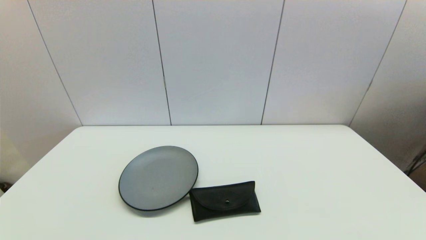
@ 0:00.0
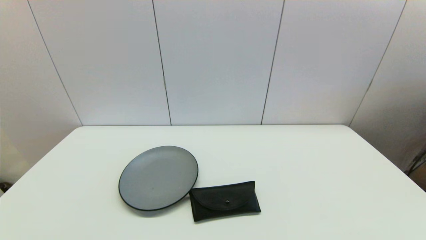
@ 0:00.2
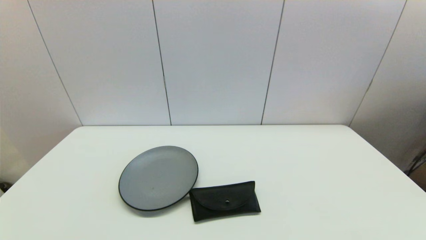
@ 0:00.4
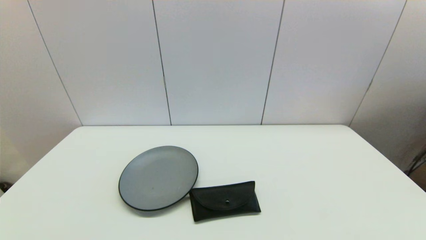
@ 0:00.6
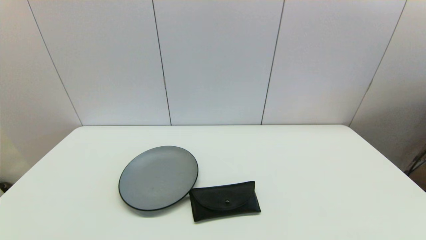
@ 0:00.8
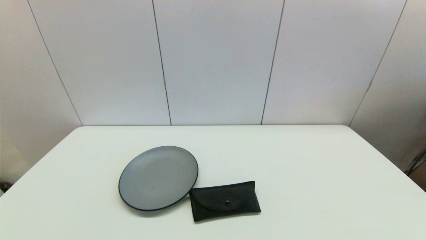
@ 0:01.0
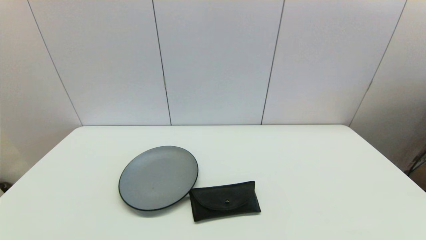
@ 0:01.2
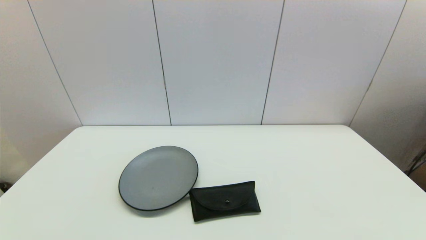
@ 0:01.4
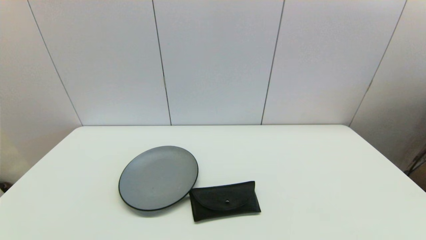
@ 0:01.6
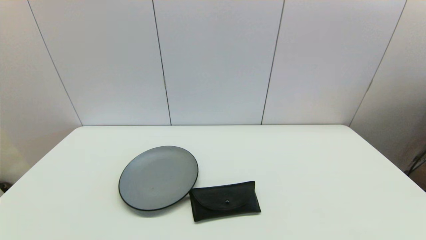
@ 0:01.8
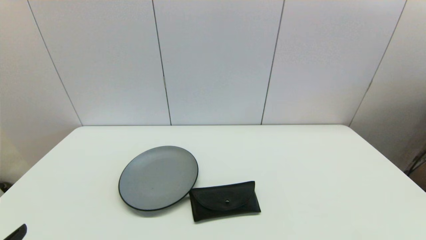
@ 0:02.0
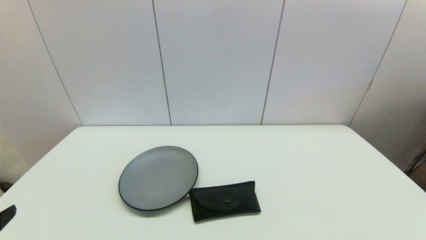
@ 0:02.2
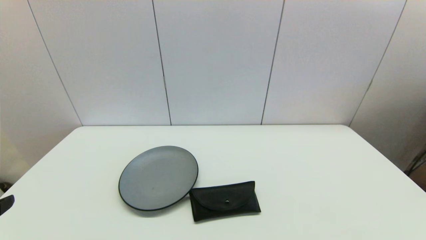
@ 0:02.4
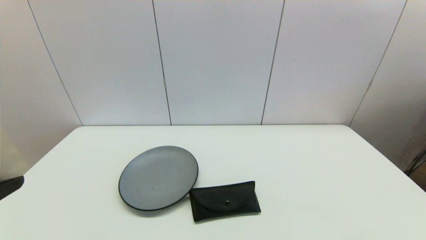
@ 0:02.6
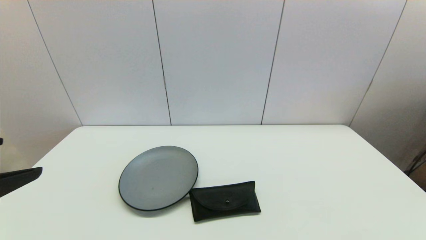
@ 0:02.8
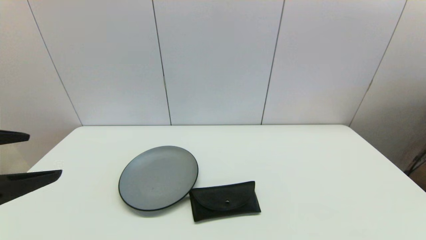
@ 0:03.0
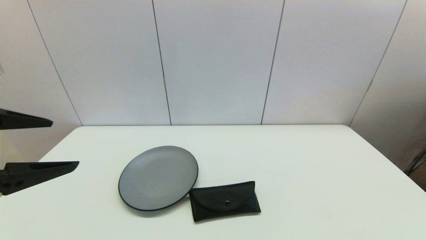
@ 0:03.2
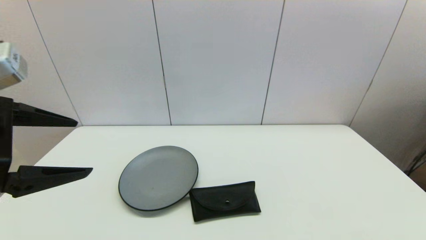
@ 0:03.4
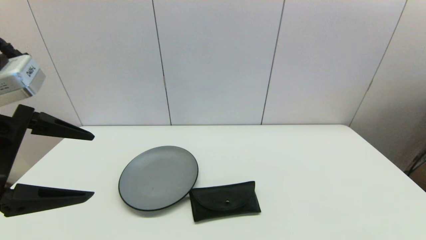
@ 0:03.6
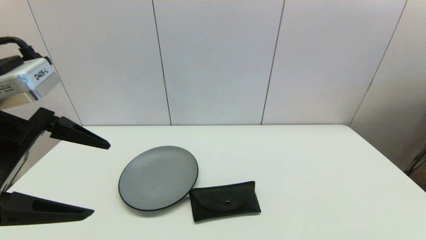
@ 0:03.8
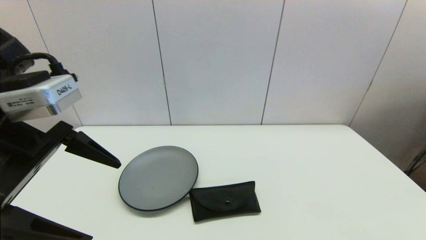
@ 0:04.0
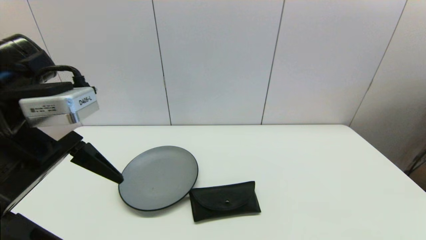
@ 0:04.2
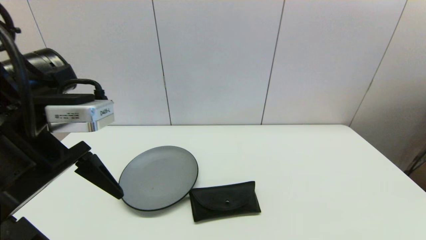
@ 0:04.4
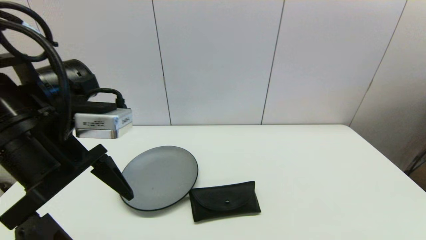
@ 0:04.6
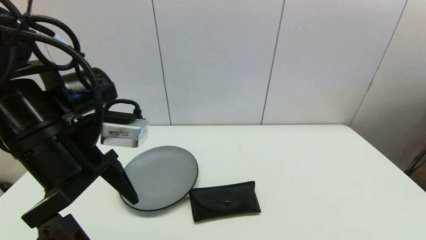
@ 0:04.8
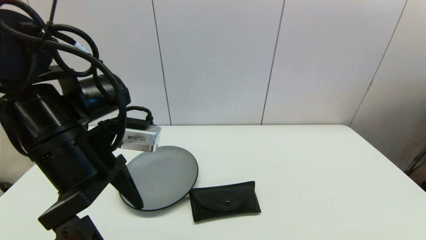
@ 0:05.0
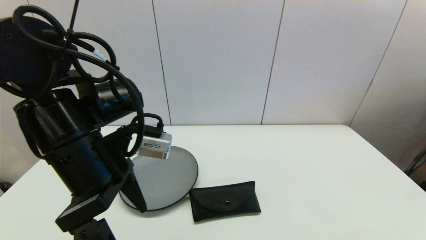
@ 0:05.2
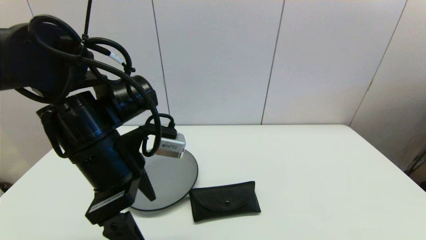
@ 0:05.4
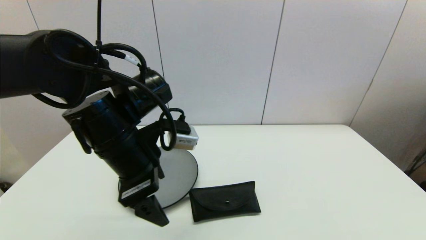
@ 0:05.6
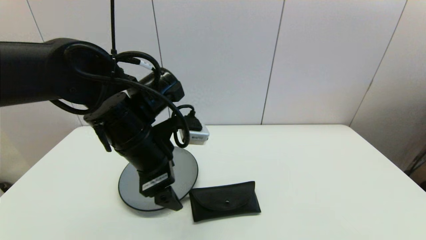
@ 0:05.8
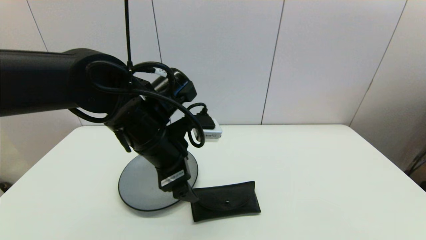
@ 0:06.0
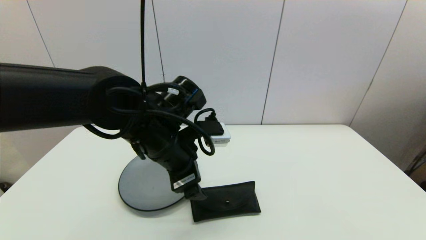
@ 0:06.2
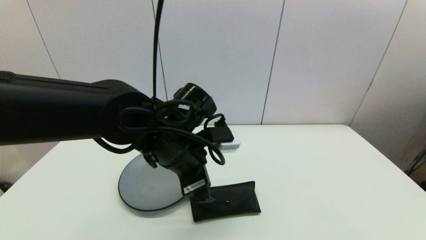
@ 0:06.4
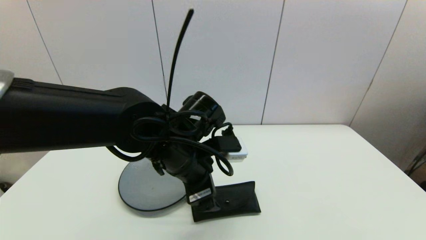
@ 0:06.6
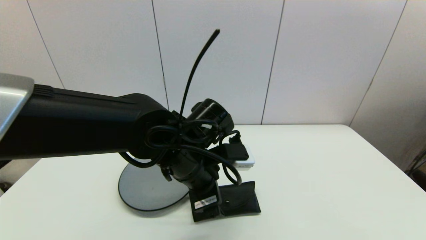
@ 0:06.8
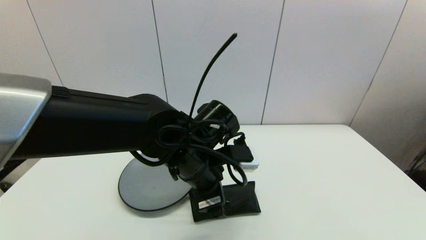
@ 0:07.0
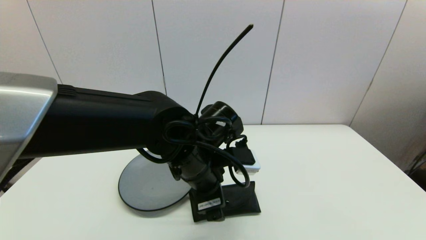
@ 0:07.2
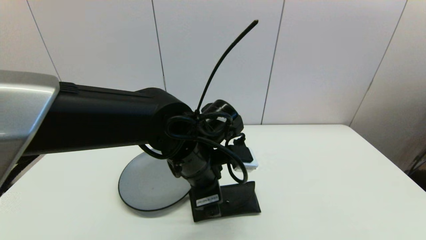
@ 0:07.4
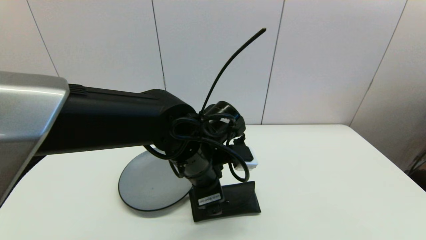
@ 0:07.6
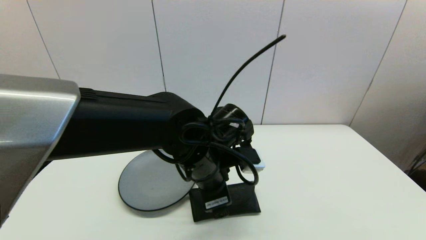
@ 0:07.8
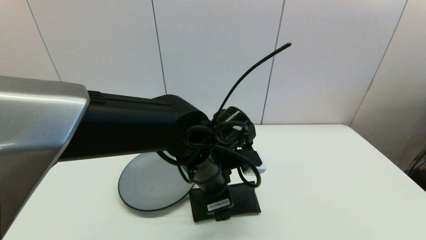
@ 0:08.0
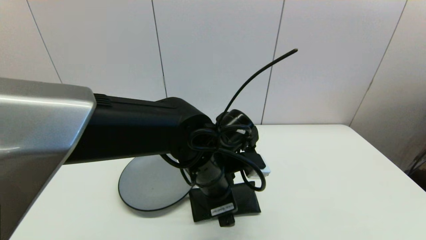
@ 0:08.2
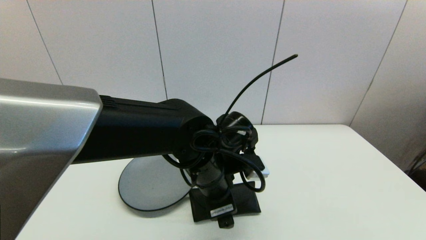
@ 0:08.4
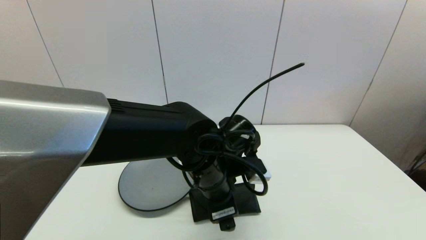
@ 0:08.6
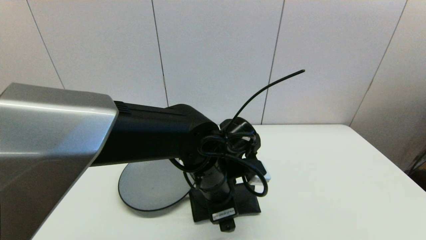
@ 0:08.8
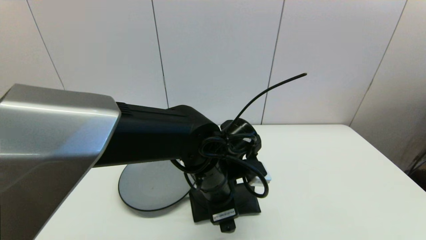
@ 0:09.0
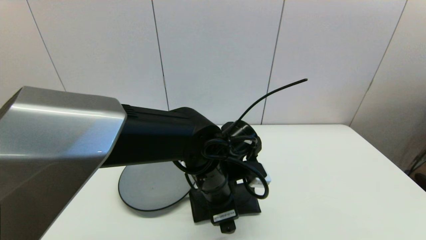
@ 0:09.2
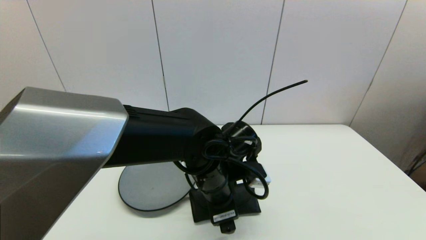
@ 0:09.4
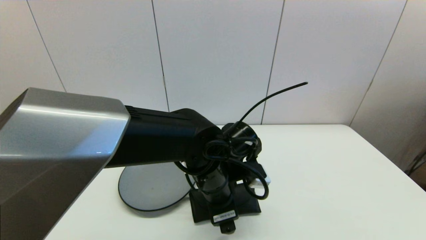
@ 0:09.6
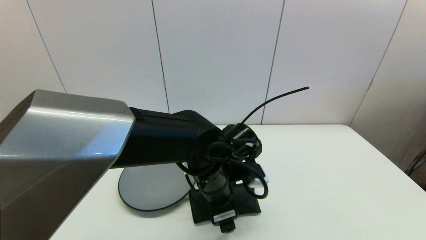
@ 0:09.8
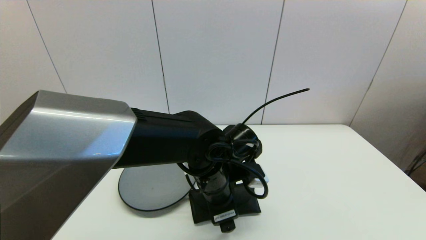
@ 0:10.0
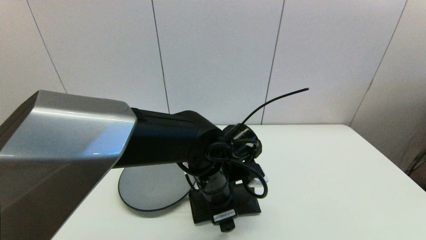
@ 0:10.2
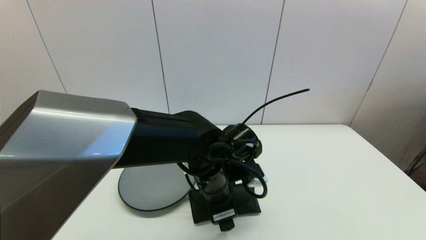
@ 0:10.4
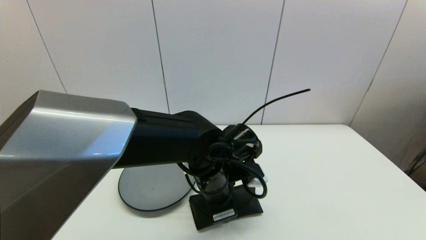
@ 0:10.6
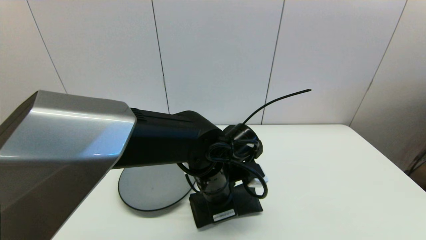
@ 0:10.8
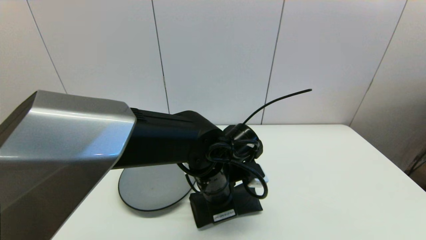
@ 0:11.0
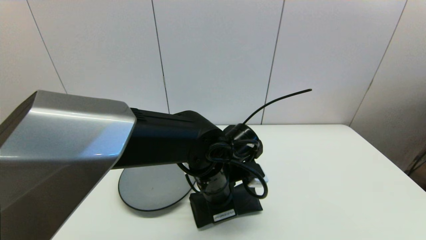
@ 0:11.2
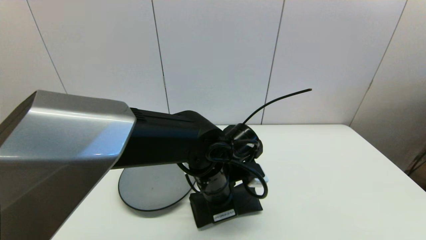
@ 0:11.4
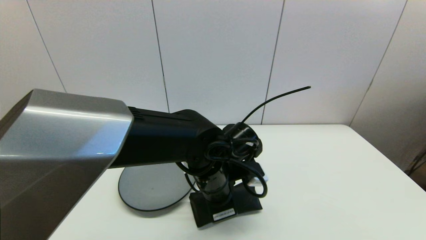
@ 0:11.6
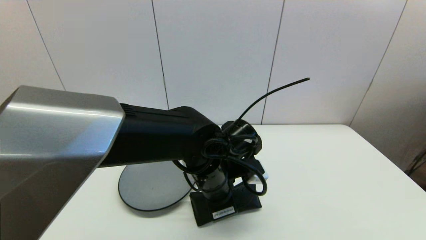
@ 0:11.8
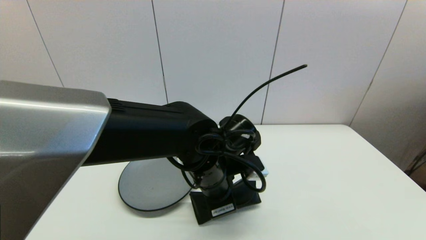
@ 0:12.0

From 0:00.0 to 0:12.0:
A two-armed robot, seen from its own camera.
Step, from 0:02.0 to 0:11.2: Grasp the glasses case with left gripper.
From 0:00.0 to 0:01.6: Both grippers stay about where they are.
From 0:01.6 to 0:03.0: The left gripper moves upward and forward, about 25 cm.
From 0:03.0 to 0:04.4: The left gripper moves forward and to the right, roughly 10 cm.
From 0:04.4 to 0:06.0: The left gripper heads to the right, forward and downward, covering about 15 cm.
From 0:06.0 to 0:07.6: The left gripper heads to the right, covering approximately 5 cm.
From 0:07.6 to 0:09.0: The grippers stay close to where they were, moving slightly.
From 0:09.0 to 0:10.4: Both grippers stay put.
From 0:10.4 to 0:12.0: The left gripper closes.

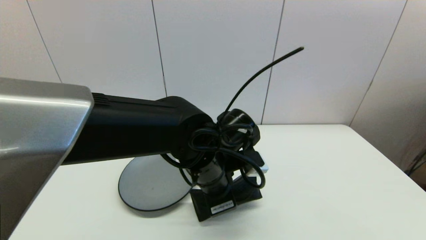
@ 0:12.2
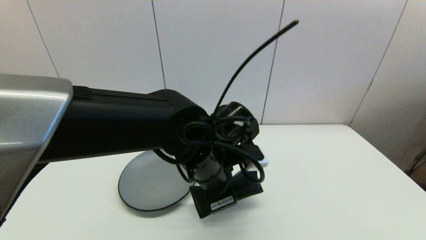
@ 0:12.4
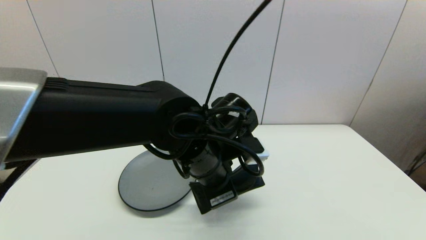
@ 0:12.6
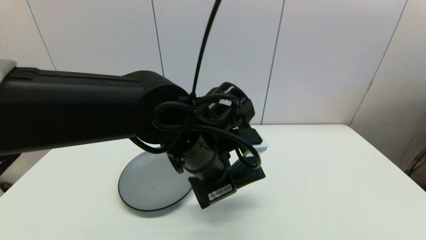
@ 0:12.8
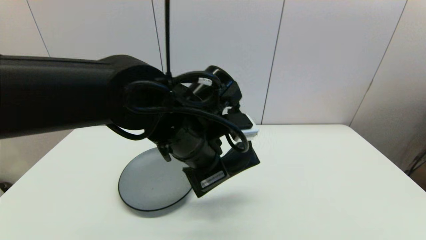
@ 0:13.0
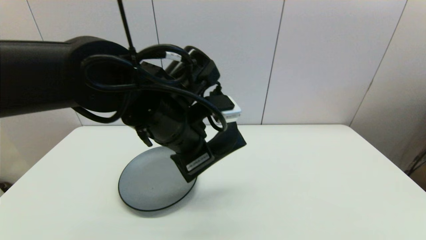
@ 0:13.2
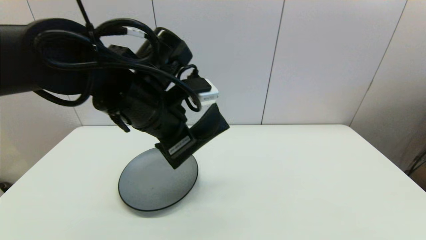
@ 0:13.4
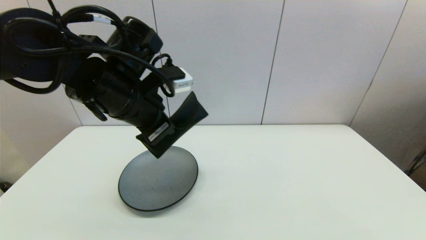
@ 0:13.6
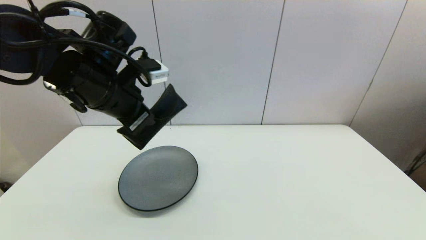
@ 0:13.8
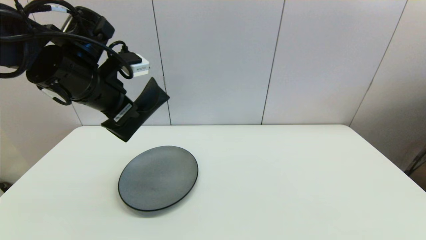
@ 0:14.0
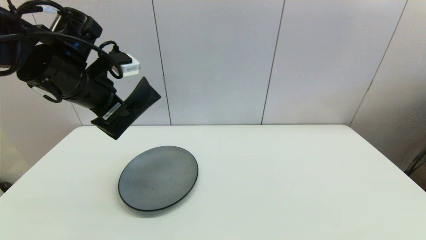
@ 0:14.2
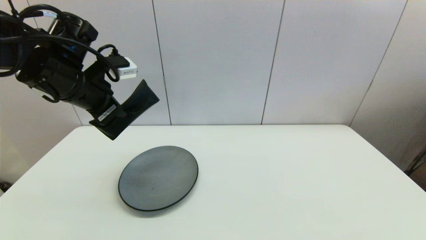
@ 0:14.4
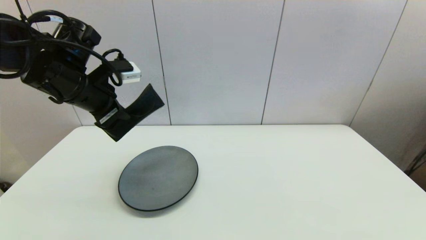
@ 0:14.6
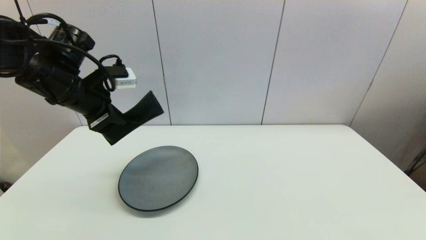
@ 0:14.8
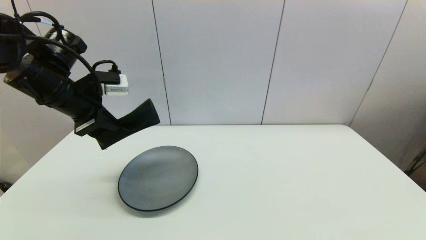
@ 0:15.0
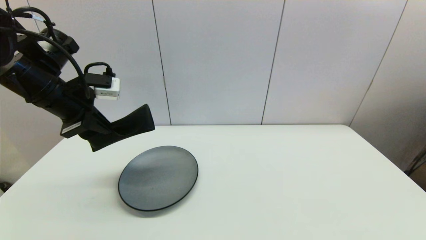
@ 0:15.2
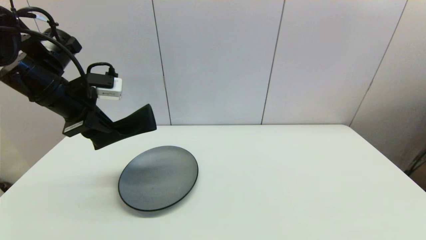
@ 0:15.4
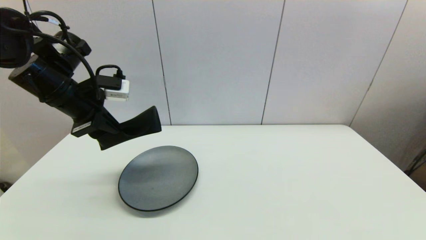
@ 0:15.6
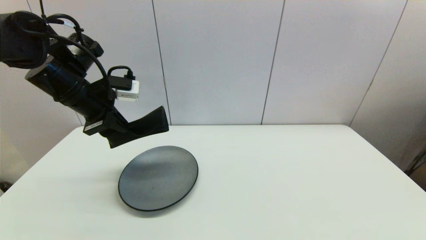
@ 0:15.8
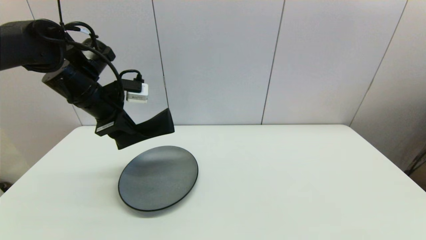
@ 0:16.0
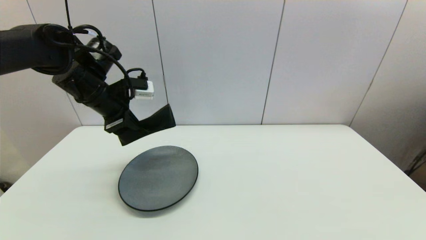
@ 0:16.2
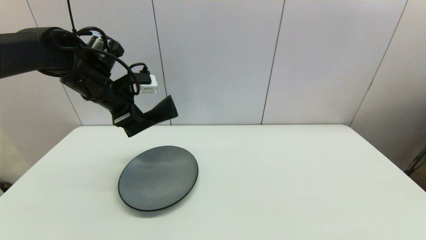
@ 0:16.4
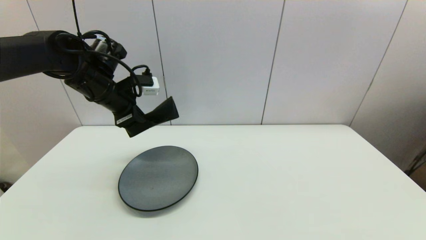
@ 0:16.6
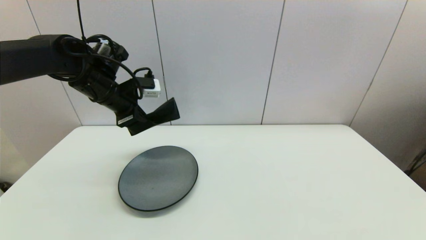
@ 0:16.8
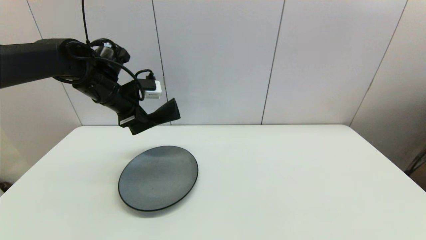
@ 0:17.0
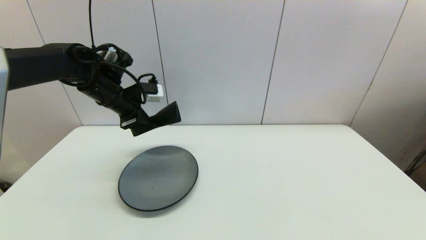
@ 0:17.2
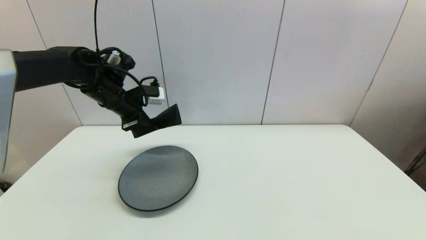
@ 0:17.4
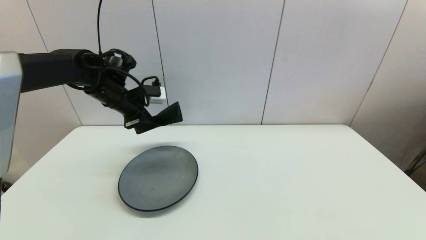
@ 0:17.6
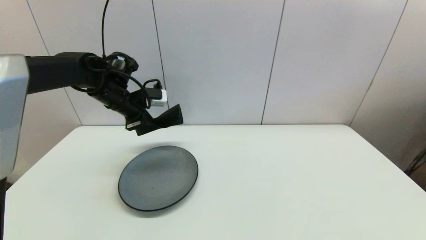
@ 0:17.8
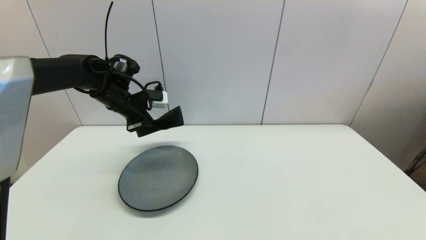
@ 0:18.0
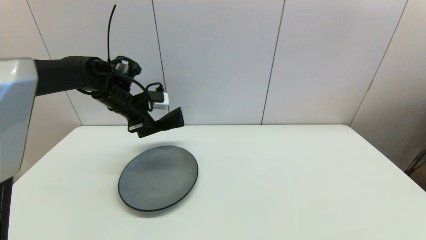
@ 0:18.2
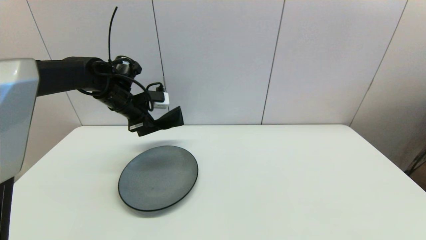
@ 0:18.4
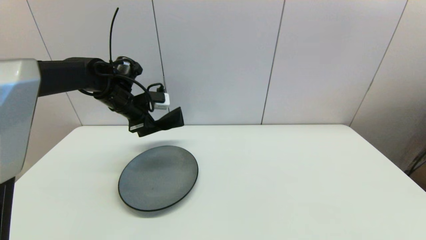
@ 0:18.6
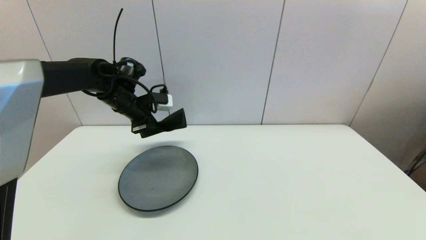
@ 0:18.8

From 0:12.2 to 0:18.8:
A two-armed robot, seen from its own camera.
From 0:12.2 to 0:13.8: The left gripper is displaced to the left and upward by about 20 cm.
From 0:13.8 to 0:15.4: The left gripper heads to the left, covering roughly 10 cm.
From 0:15.4 to 0:17.2: The left gripper shifts approximately 10 cm forward and to the right.
From 0:17.2 to 0:18.8: The grippers move only a little.
